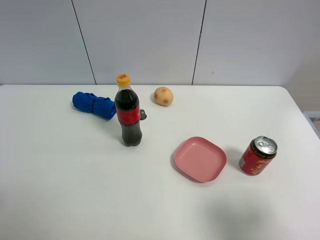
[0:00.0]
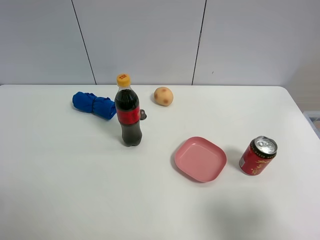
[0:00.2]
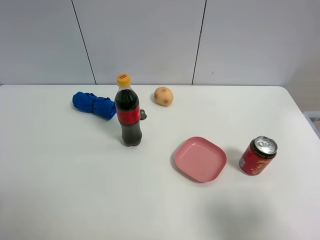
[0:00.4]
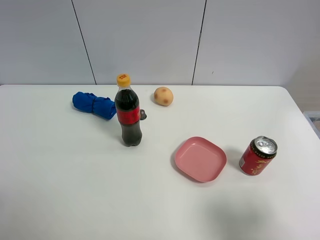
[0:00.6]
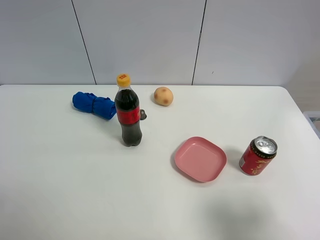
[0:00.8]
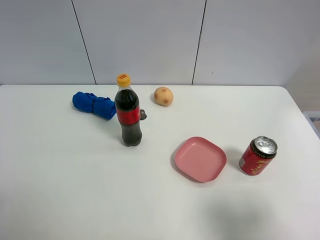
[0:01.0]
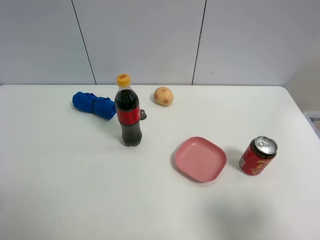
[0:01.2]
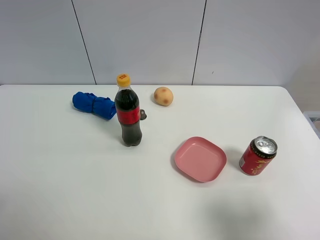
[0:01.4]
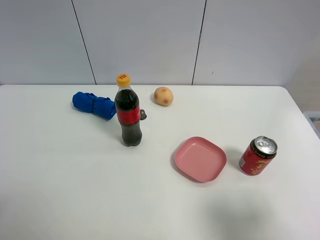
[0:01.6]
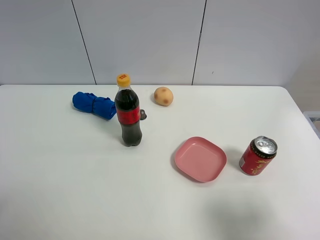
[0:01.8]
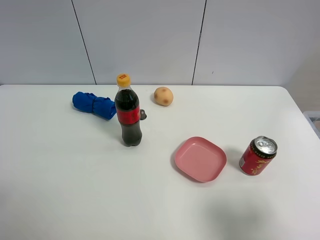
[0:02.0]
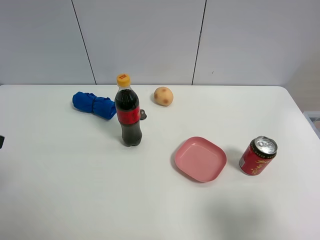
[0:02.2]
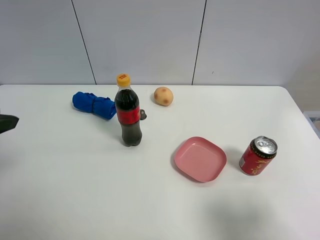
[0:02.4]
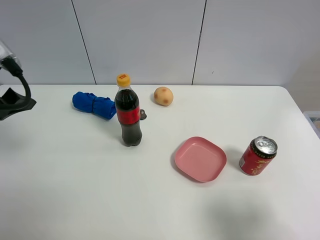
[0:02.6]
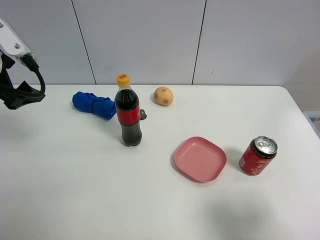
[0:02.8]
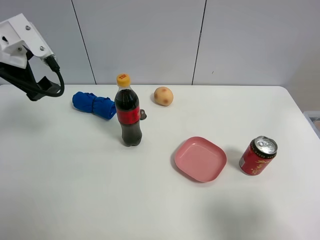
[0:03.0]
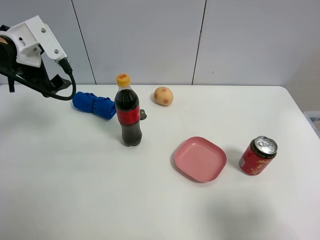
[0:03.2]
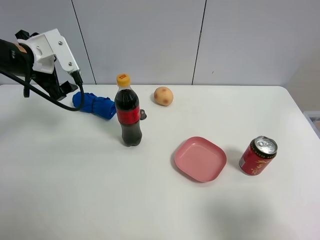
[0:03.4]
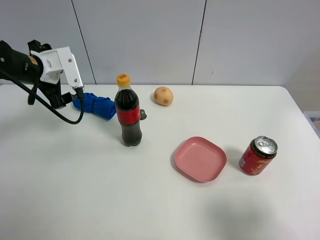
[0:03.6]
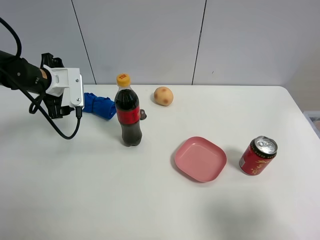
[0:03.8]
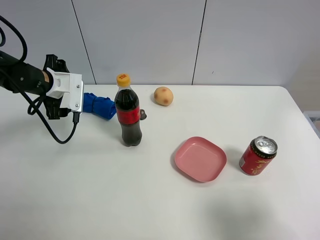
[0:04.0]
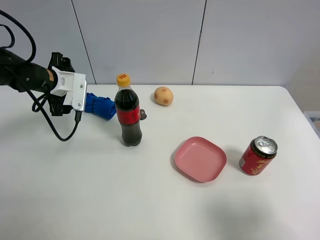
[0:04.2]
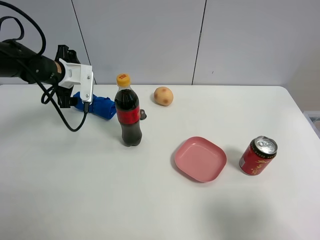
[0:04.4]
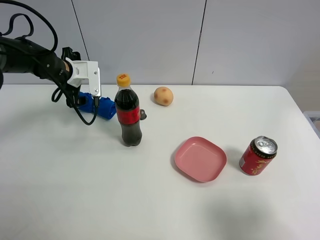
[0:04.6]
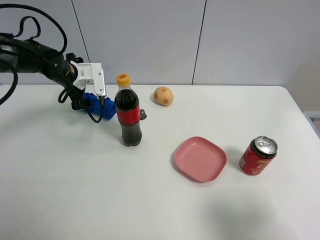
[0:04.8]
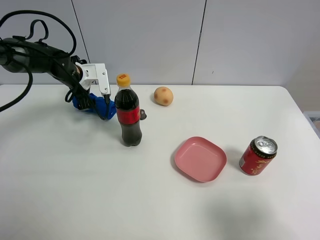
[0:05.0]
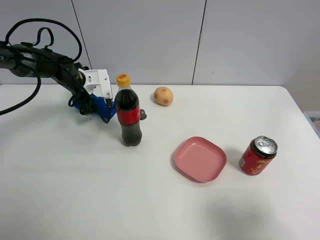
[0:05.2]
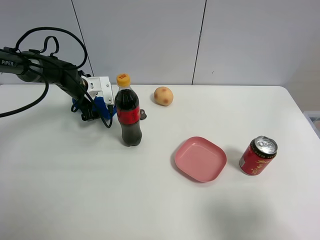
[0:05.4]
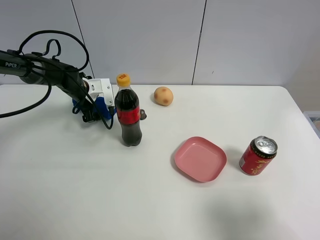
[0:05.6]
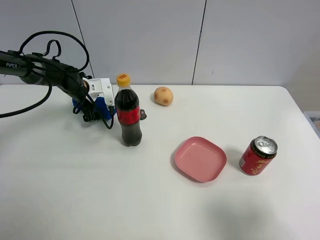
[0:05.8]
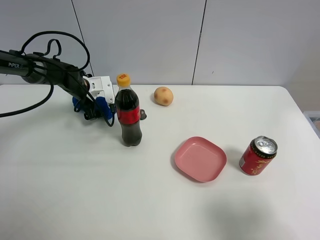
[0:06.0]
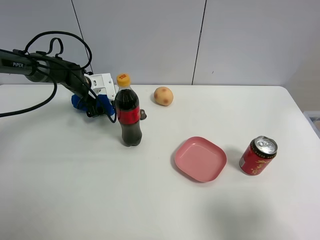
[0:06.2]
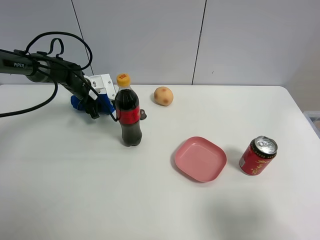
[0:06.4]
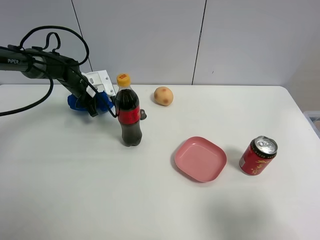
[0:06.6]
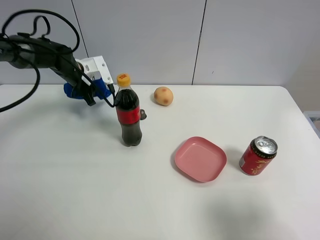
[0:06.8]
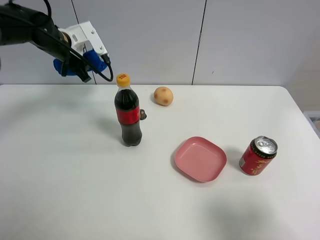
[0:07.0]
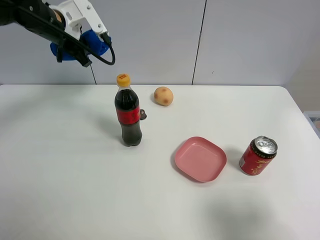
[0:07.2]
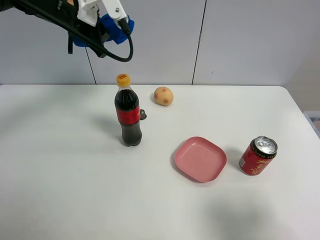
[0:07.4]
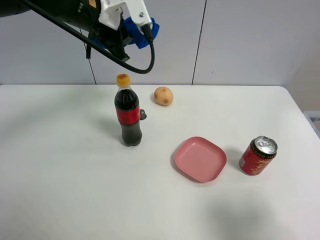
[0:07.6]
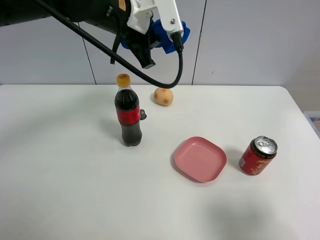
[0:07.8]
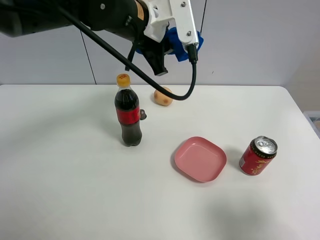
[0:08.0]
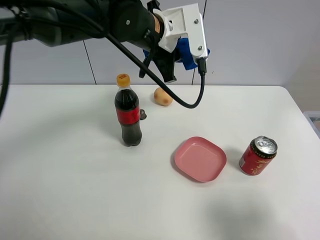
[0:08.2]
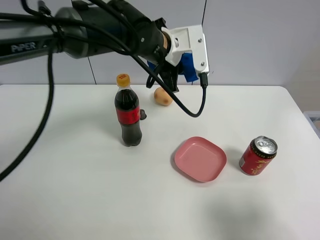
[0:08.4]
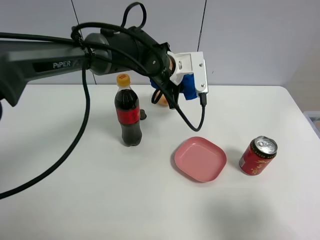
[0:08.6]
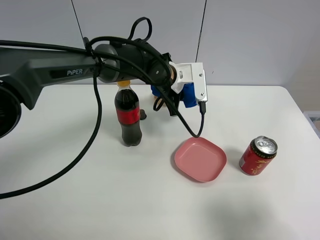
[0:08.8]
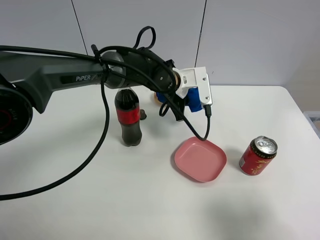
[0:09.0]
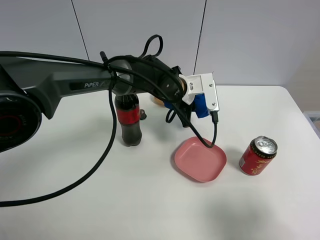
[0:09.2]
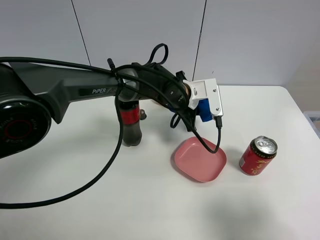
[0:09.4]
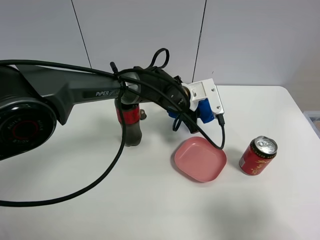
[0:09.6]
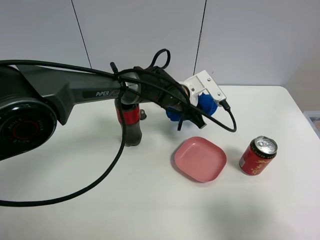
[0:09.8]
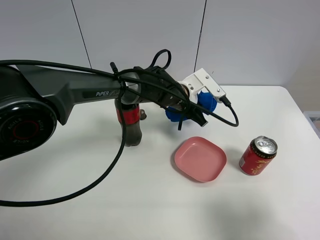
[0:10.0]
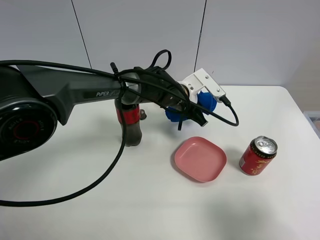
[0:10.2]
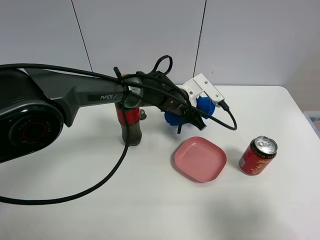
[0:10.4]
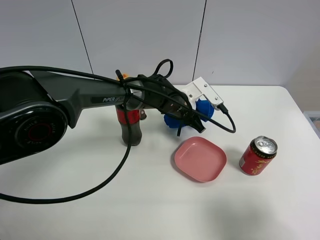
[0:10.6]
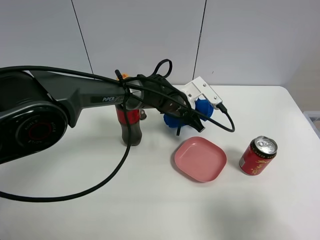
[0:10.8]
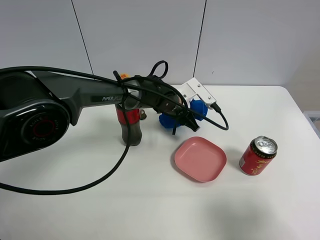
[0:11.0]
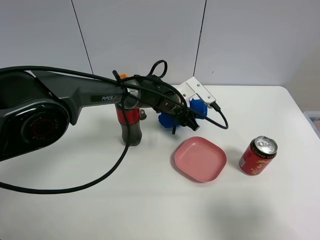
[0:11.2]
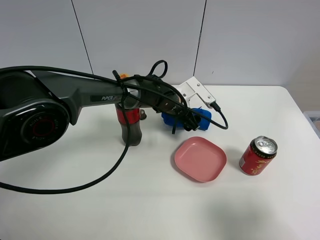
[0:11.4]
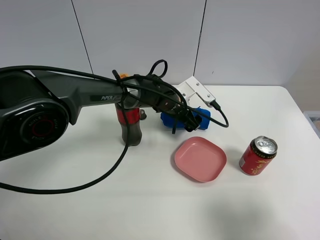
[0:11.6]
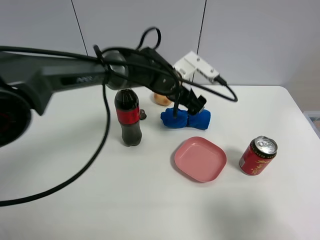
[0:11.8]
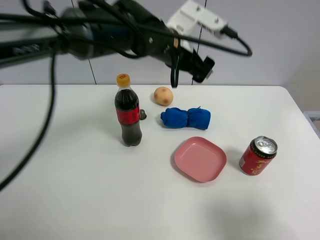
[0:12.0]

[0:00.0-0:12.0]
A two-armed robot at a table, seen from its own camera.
Task of the whole recording: the gripper move the object.
Step, 0:00.0 to 0:06.4: Grasp the blue towel with the left gripper.
Step, 0:06.6 to 0:11.6: Place the blue towel on the table with the left gripper.
0:01.6 to 0:03.0: The left gripper heads forward, covering roughly 30 cm.
0:03.0 to 0:04.4: The left gripper shifts roughly 15 cm downward and forward.
0:04.4 to 0:06.0: The left gripper is displaced downward and forward by approximately 10 cm.
0:06.0 to 0:07.6: The left gripper goes some 30 cm upward, to the right and backward, and closes.
0:07.6 to 0:09.0: The left gripper shifts roughly 20 cm downward and to the right.
0:09.0 to 0:10.4: The left gripper shifts by roughly 5 cm.
0:10.4 to 0:12.0: The left gripper is displaced upward by some 15 cm, and opens its fingers.

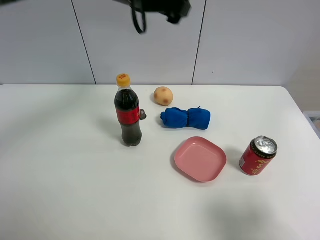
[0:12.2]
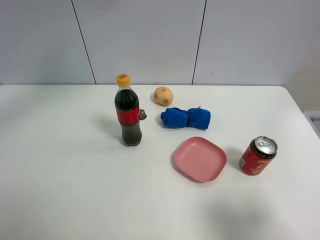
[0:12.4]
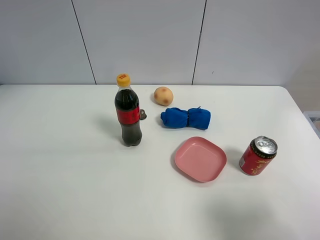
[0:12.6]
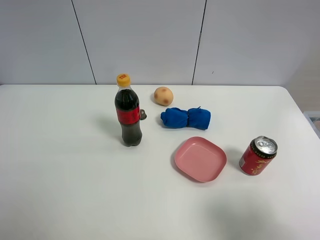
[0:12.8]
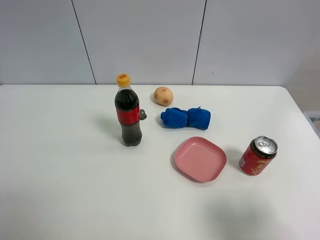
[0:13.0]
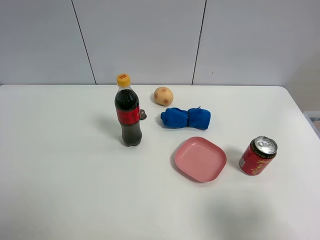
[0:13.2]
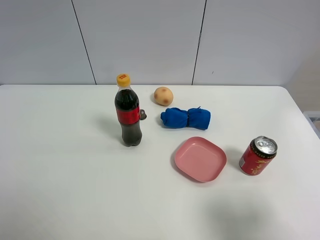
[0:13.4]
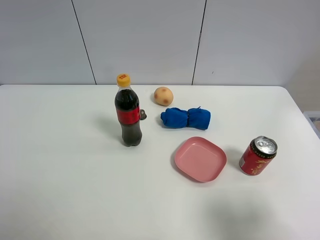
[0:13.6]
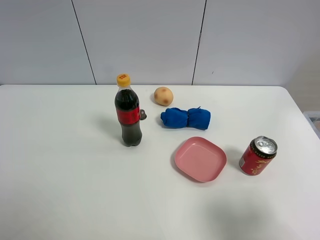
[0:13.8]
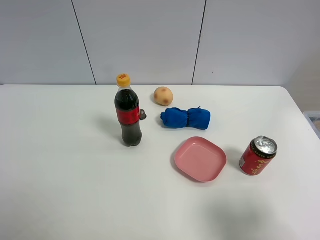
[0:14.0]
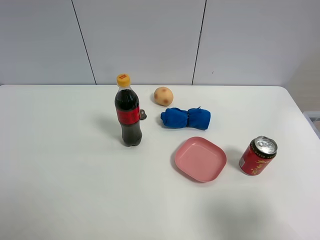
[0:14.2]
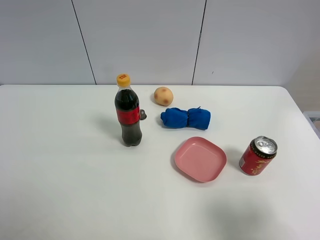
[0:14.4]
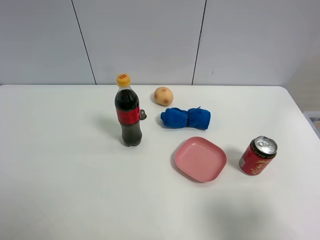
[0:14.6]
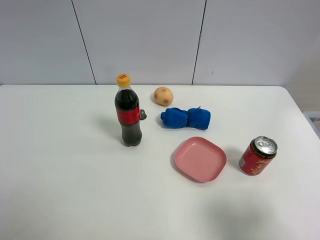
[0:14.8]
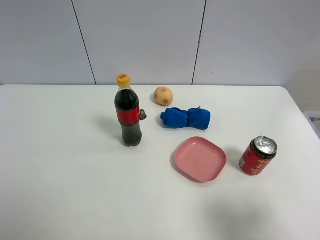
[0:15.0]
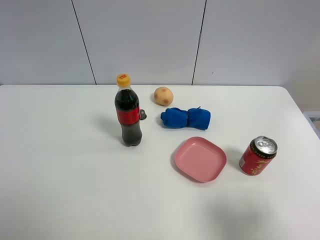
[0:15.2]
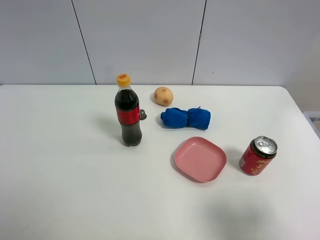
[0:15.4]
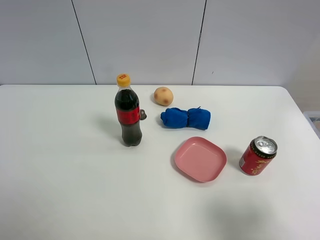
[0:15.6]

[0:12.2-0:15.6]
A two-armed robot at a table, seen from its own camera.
Task of the whole recording: the gripper move the object.
0:12.2 to 0:13.8: The left gripper travels backward and to the left by roughly 40 cm.

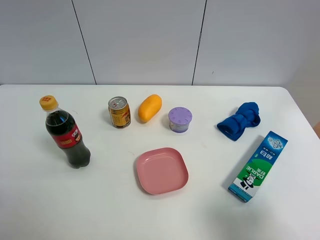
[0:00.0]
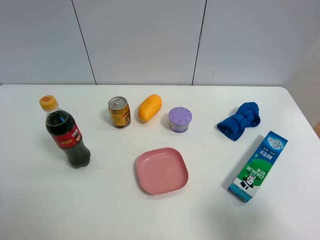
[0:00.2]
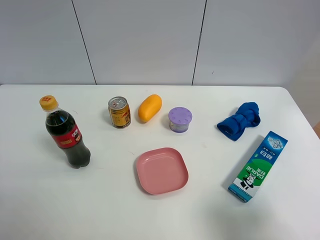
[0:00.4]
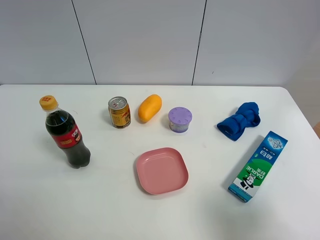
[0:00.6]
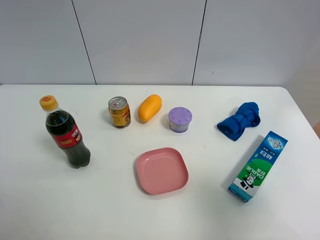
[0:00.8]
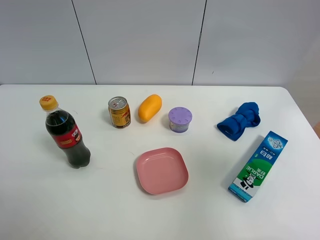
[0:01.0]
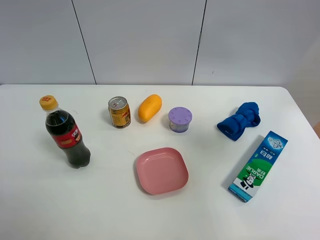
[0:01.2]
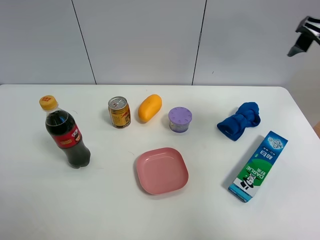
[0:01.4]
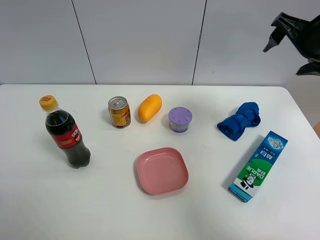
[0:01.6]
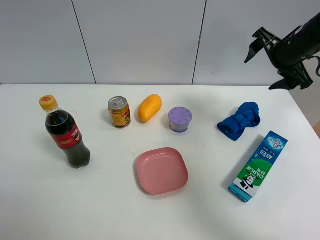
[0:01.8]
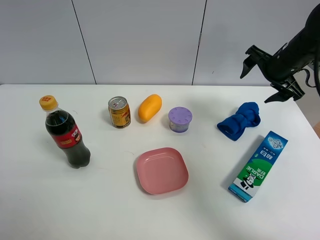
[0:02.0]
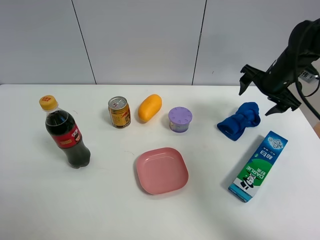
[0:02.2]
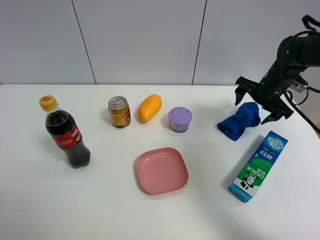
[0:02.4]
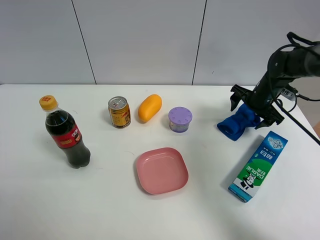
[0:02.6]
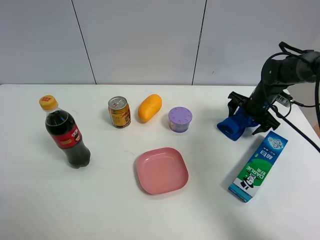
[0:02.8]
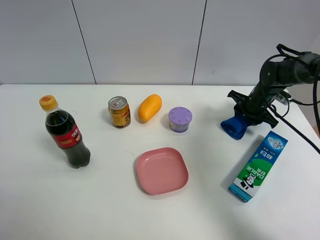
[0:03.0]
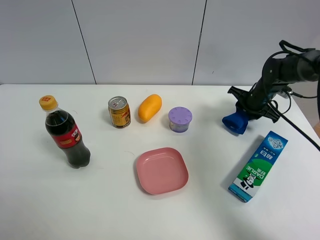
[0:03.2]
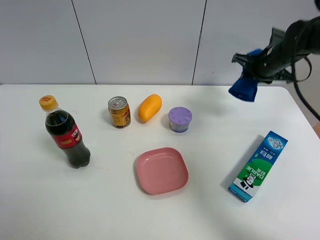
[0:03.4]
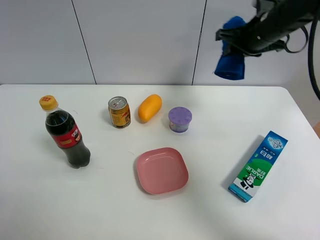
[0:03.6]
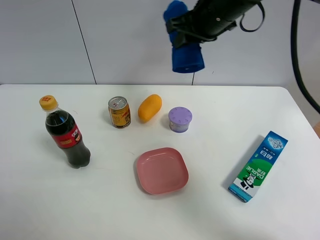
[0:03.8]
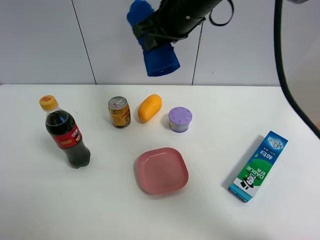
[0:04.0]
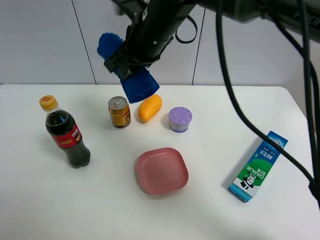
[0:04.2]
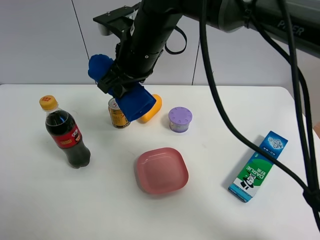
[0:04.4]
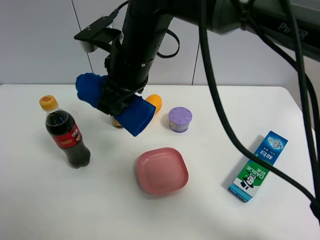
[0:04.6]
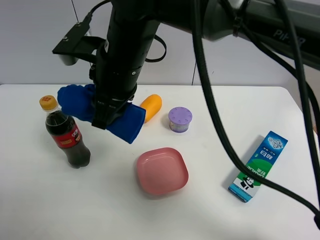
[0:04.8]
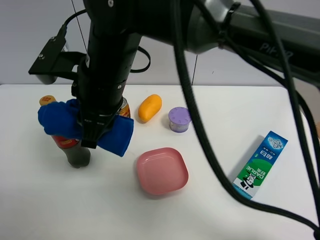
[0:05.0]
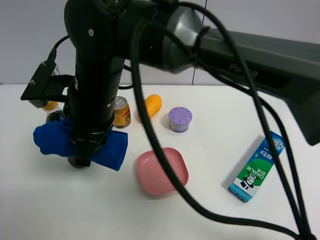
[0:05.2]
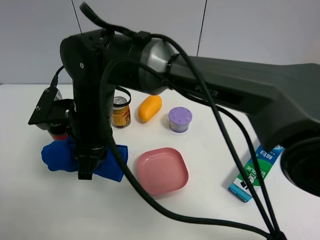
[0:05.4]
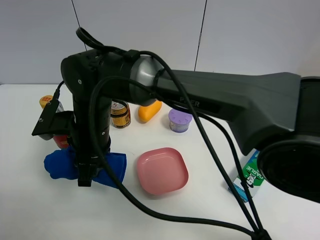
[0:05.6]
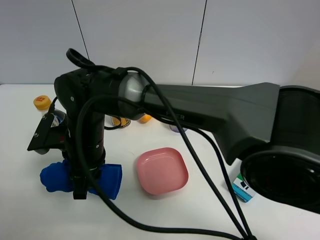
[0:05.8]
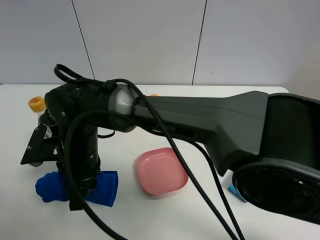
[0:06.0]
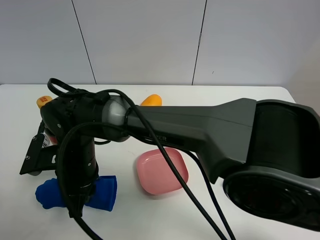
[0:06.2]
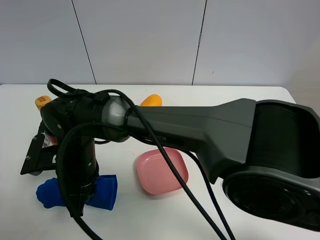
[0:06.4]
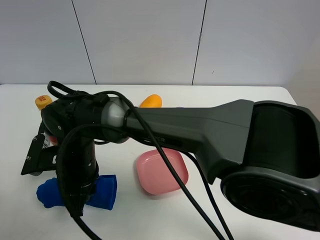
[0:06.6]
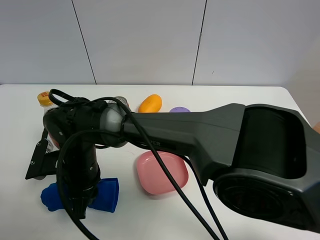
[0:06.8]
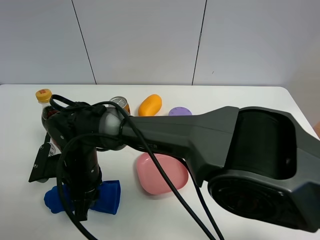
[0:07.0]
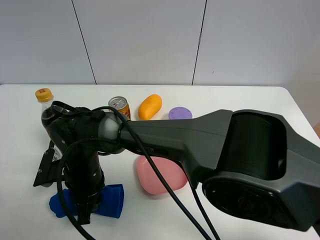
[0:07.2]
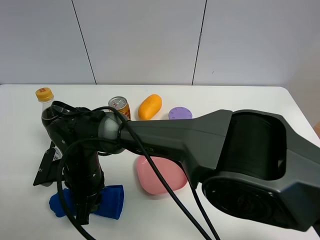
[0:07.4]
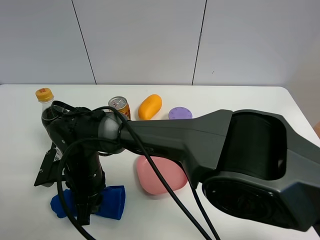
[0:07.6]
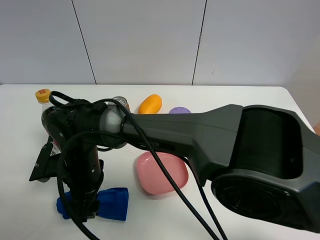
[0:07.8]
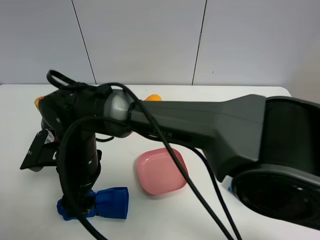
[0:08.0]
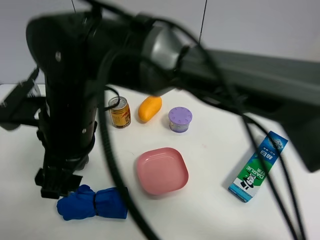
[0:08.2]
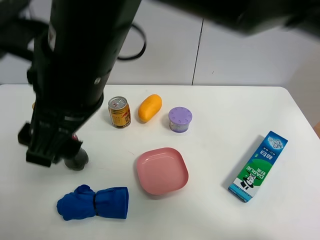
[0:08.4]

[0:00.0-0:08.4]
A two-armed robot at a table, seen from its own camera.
Task of the whole recording: the gripper move the object.
Step, 0:00.0 to 0:03.0: Grasp the blue towel with the right gripper.
Step, 0:03.2 to 0:08.2: Place the blue towel on the table with the right gripper.
0:00.0 to 0:01.4: The right gripper goes about 30 cm forward.
0:01.4 to 0:02.8: The right gripper goes roughly 25 cm downward and forward.
0:02.8 to 0:04.2: The right gripper is displaced to the left and upward by approximately 35 cm, and closes.
0:04.2 to 0:05.6: The right gripper goes about 20 cm downward, to the left and backward.
0:05.6 to 0:07.0: The right gripper goes about 10 cm downward.
0:07.0 to 0:08.4: The right gripper shifts some 25 cm upward, and opens up.
